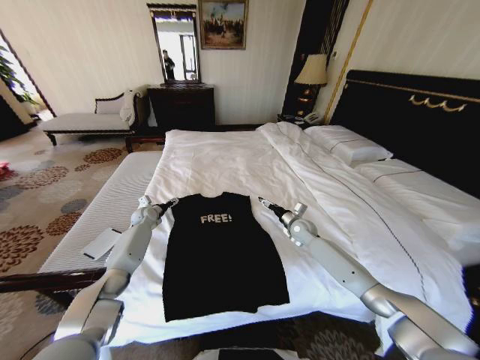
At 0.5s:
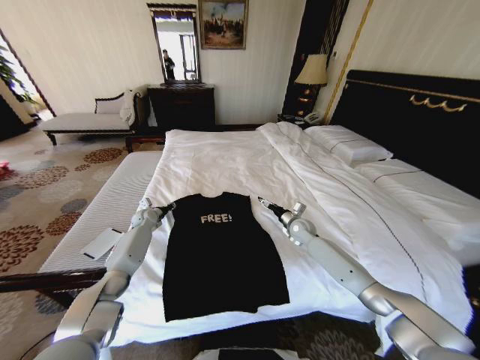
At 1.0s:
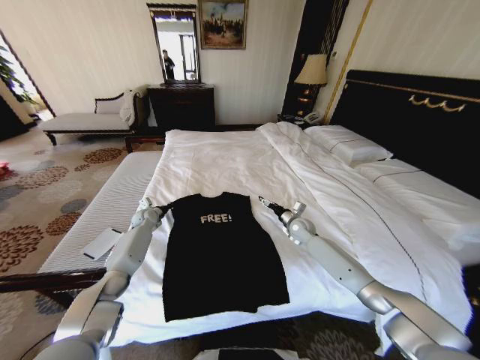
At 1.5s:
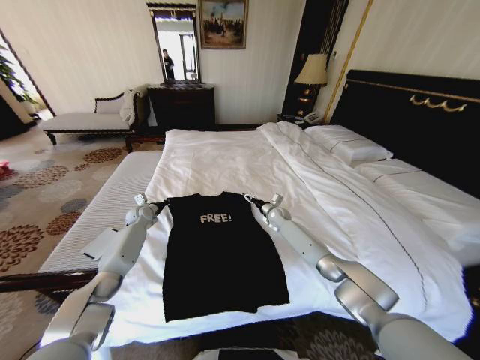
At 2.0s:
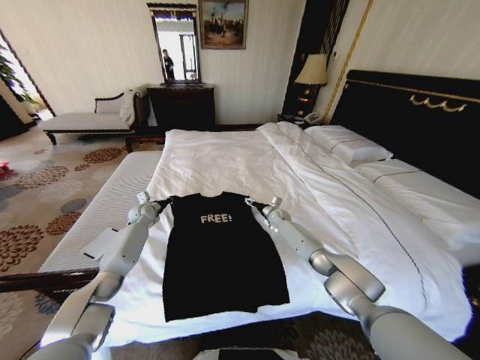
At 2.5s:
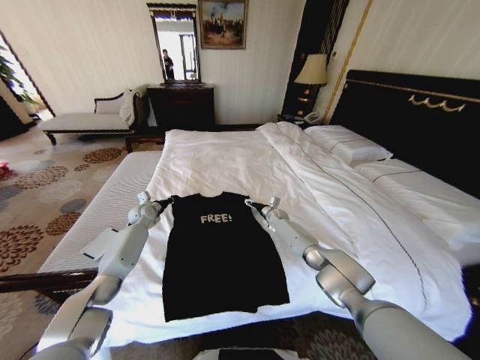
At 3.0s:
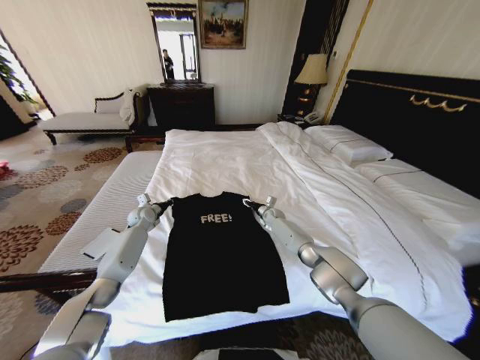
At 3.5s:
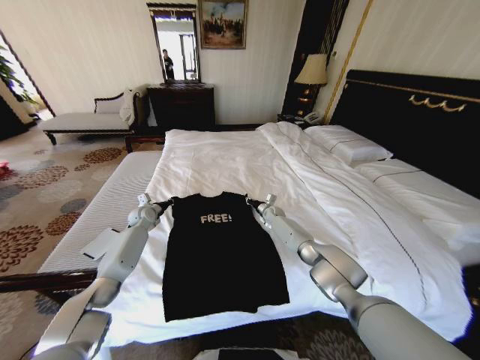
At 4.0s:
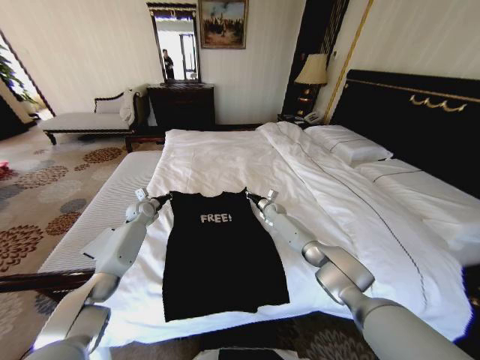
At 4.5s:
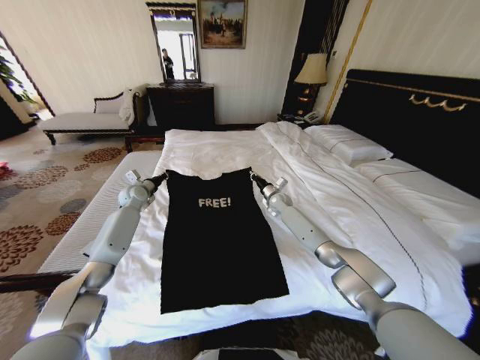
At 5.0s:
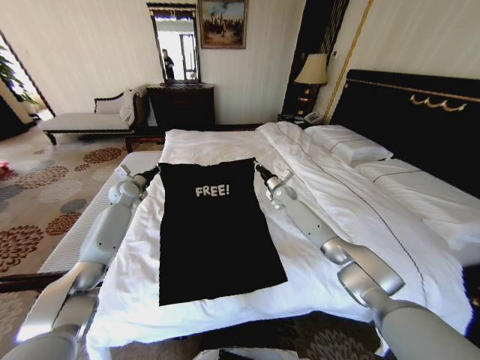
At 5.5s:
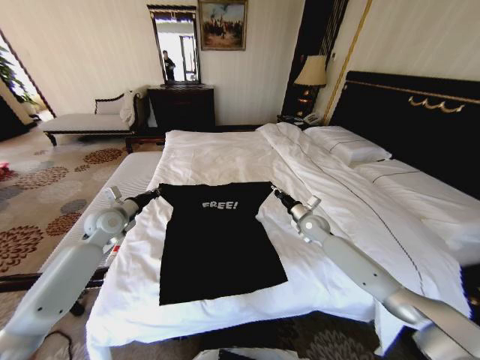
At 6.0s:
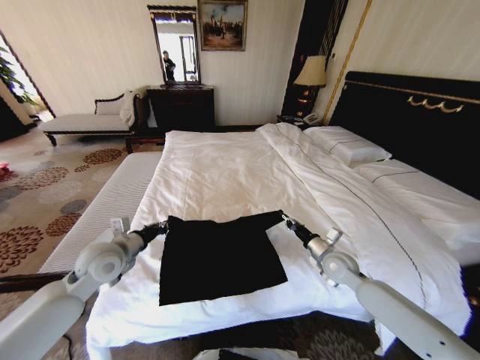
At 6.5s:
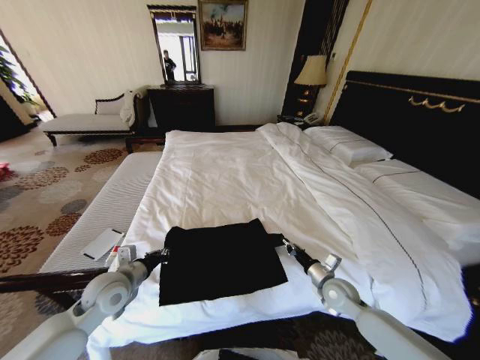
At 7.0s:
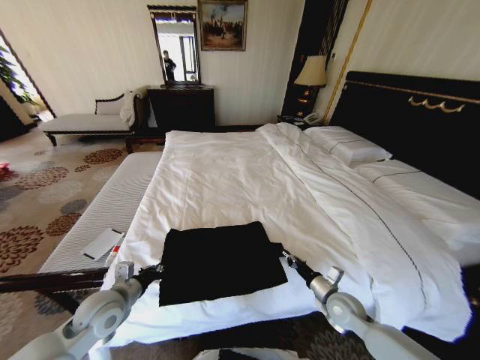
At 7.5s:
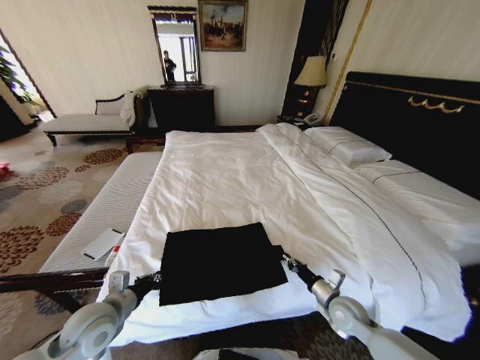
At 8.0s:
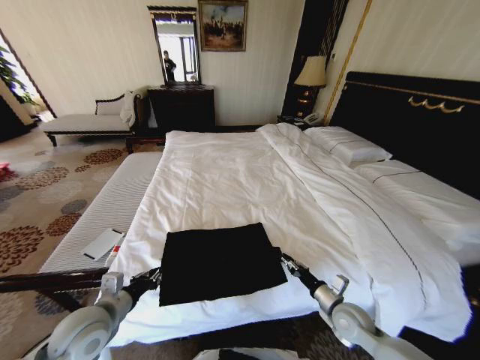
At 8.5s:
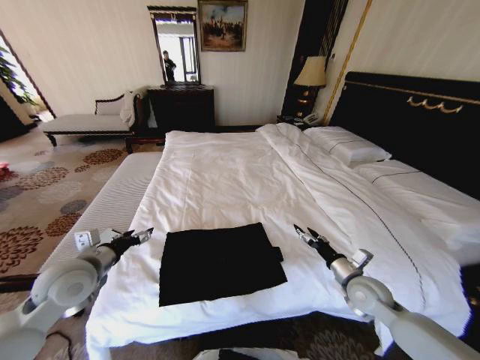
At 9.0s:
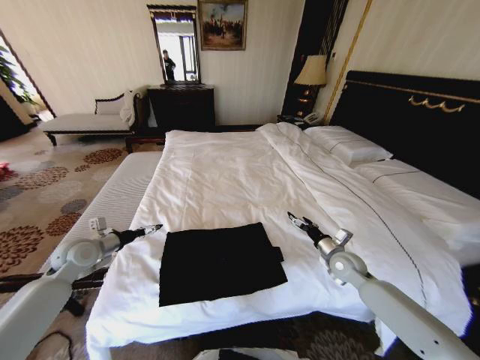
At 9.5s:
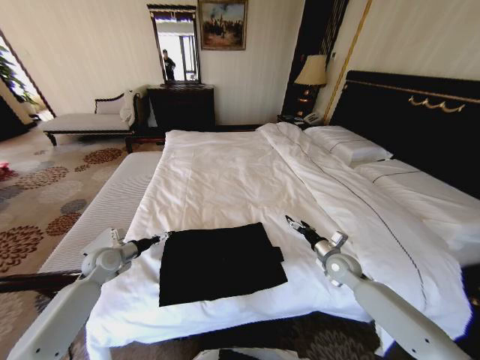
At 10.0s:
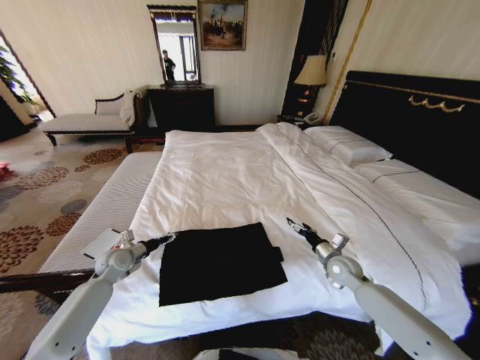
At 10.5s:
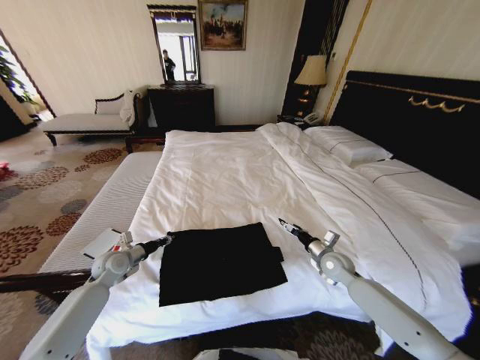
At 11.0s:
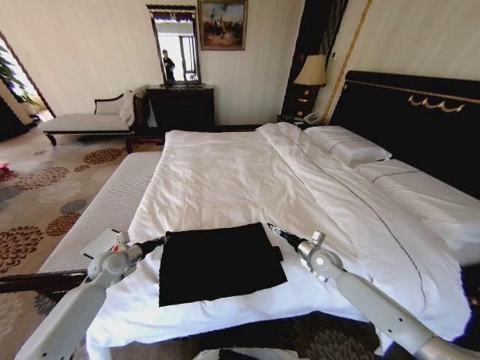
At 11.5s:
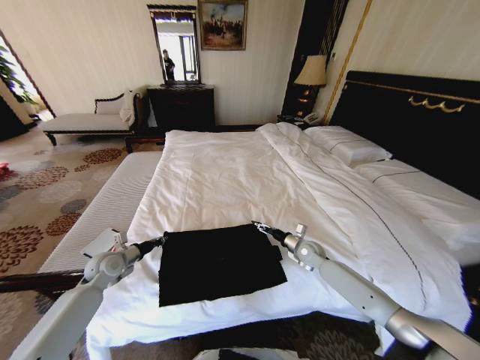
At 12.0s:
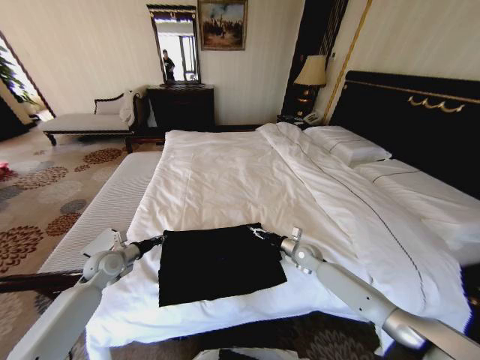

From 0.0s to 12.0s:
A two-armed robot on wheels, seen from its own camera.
Task of the whole recording: Fold the clothes on the bed.
From 0.0s to 2.0s: The right gripper heads forward and to the left, covering roughly 10 cm, while the left gripper closes its fingers.
From 2.0s to 4.0s: The right gripper closes up.
From 4.0s to 6.0s: The left gripper moves backward, roughly 25 cm; the right gripper is displaced backward and to the right by some 30 cm.
From 6.0s to 8.0s: The two grippers go roughly 15 cm backward and downward.
From 8.0s to 10.0s: The left gripper is displaced forward, downward and to the left by roughly 20 cm, and opens up; the right gripper heads forward, covering approximately 15 cm, and opens its fingers.
From 10.0s to 12.0s: The left gripper closes. Meanwhile the right gripper goes roughly 10 cm forward and to the left.

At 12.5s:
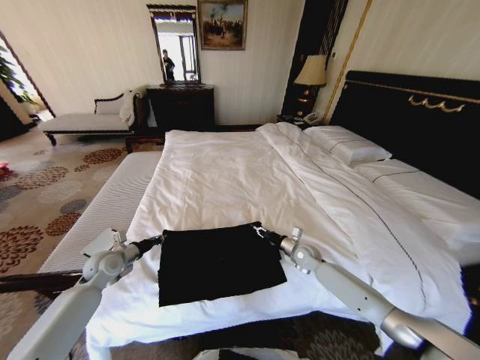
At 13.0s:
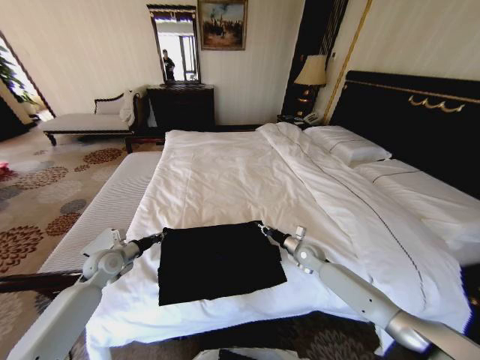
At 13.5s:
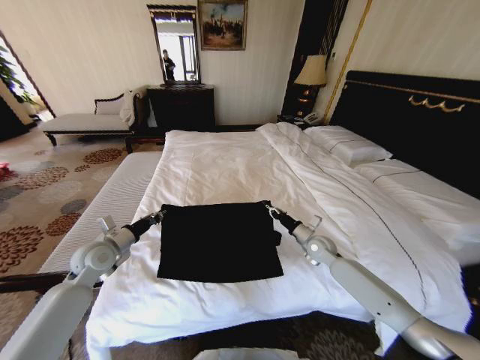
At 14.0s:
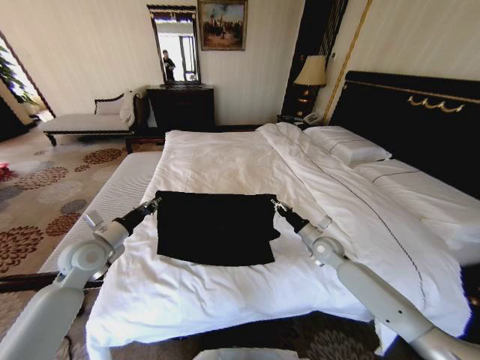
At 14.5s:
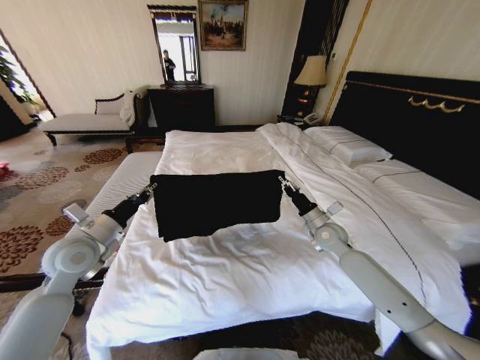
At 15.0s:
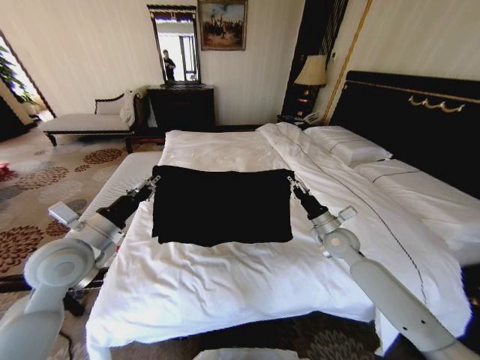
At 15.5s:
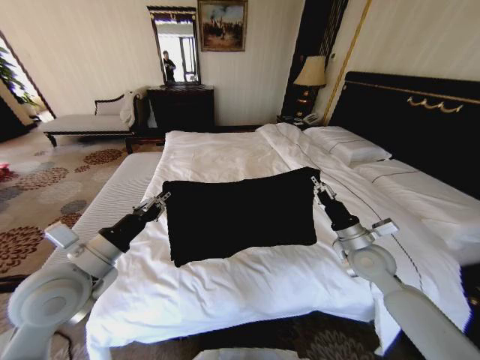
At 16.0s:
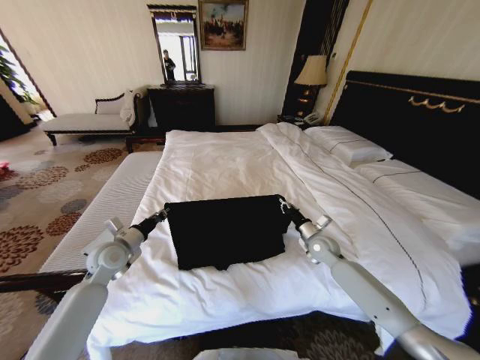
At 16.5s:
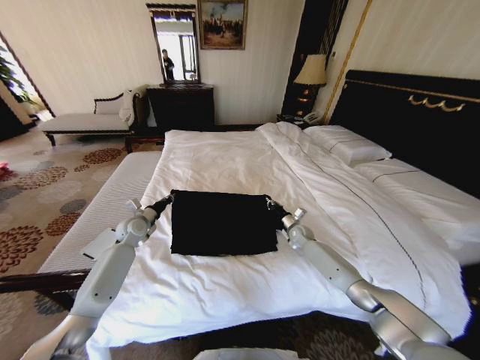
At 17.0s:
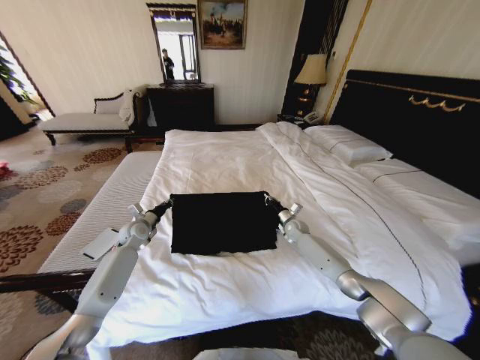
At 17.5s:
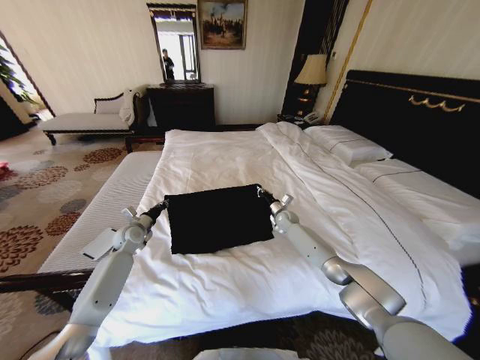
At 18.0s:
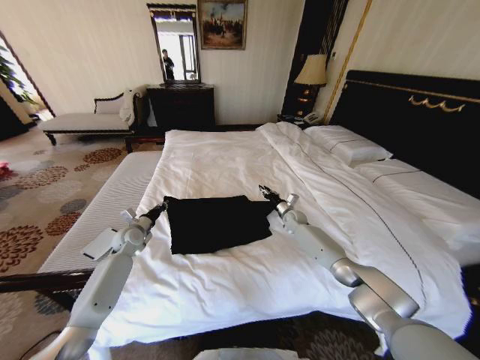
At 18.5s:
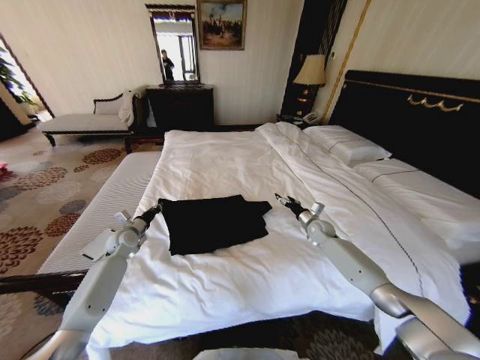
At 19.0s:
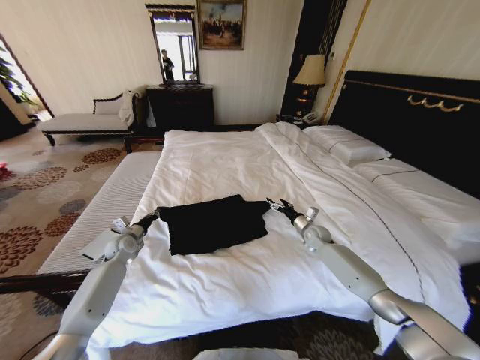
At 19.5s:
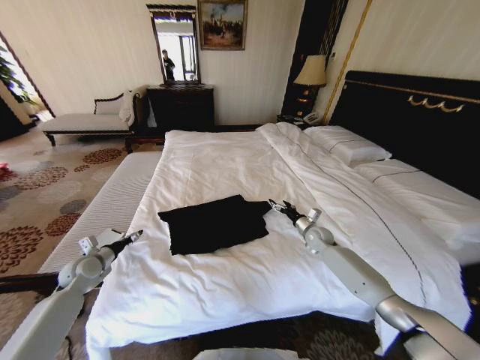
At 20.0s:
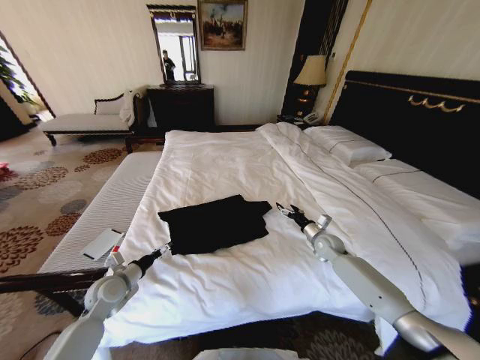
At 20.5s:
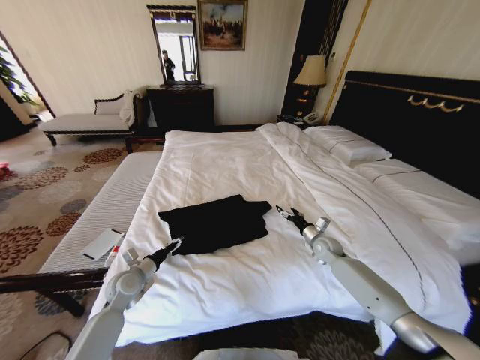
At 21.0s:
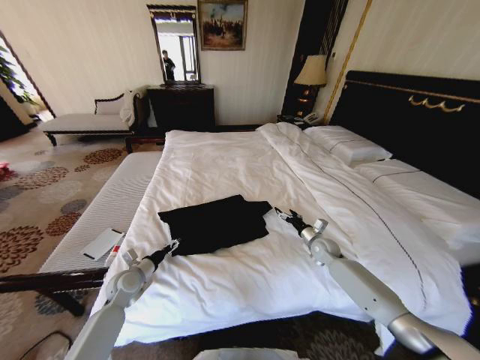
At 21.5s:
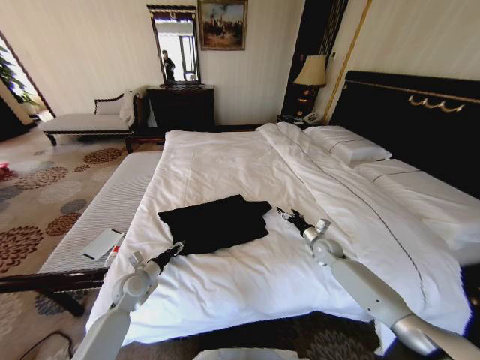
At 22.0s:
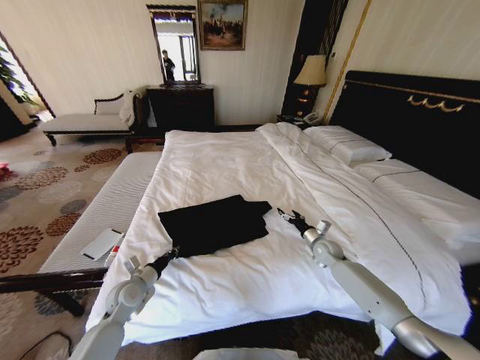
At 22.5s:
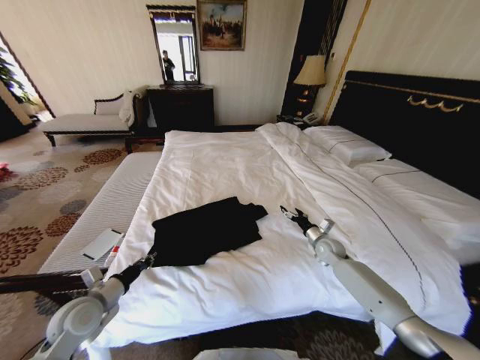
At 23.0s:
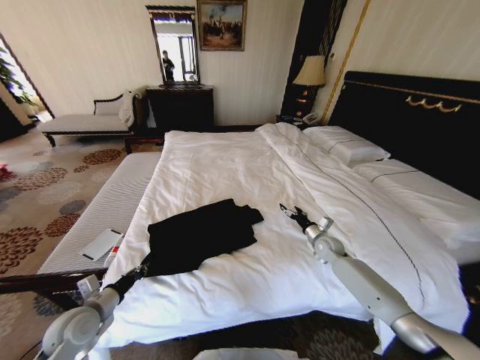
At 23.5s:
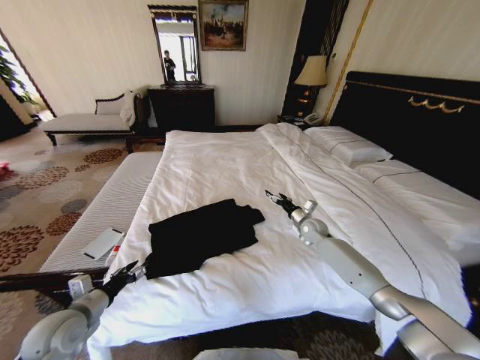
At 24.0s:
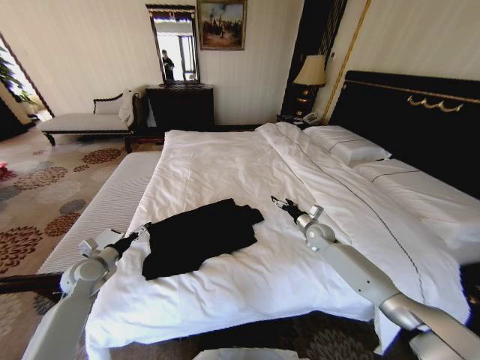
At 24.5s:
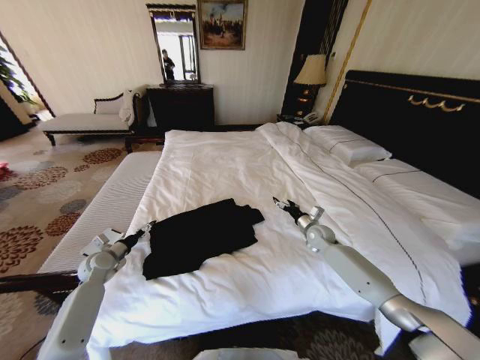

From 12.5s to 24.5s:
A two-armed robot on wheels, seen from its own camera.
Task of the whole recording: Fold the clothes on the bed.
From 12.5s to 14.5s: Both grippers travel together upward, about 15 cm.
From 14.5s to 16.5s: The right gripper travels downward and forward by about 15 cm, while the left gripper goes approximately 20 cm forward and downward.
From 16.5s to 18.5s: The right gripper travels to the right by about 5 cm, and opens up. The left gripper shifts by about 5 cm.
From 18.5s to 20.5s: The right gripper travels backward by some 5 cm. The left gripper is displaced backward and to the right by about 15 cm, and opens its fingers.
From 20.5s to 22.5s: The left gripper goes some 10 cm backward and upward, and closes its fingers.
From 22.5s to 24.5s: The left gripper travels forward and to the left by roughly 20 cm, and opens up.

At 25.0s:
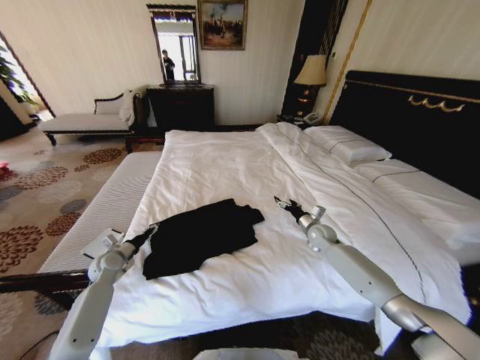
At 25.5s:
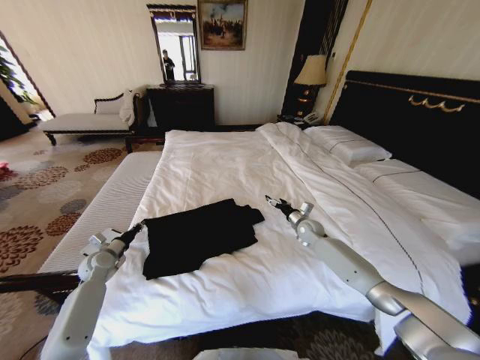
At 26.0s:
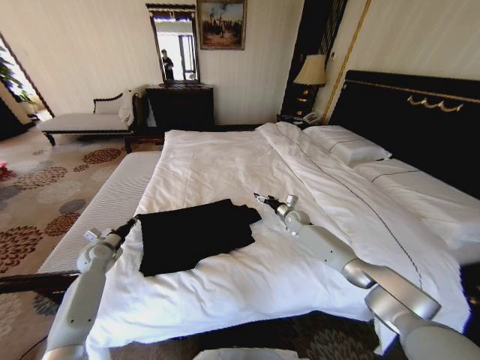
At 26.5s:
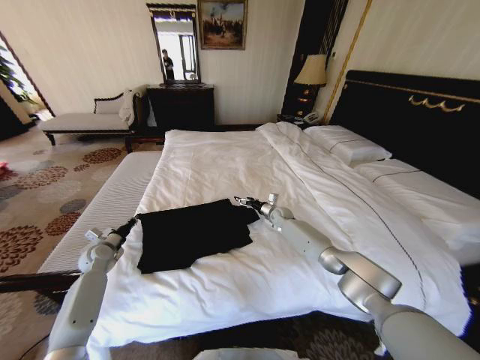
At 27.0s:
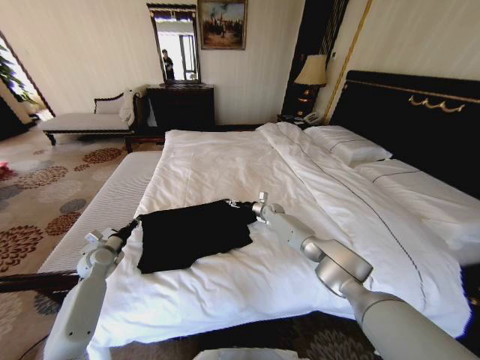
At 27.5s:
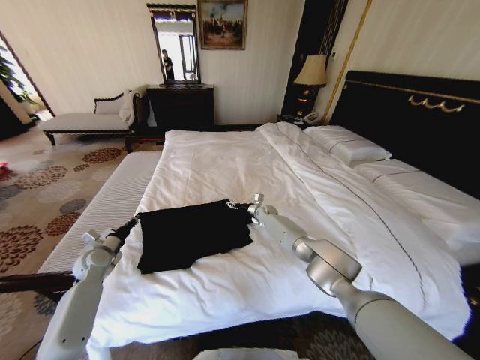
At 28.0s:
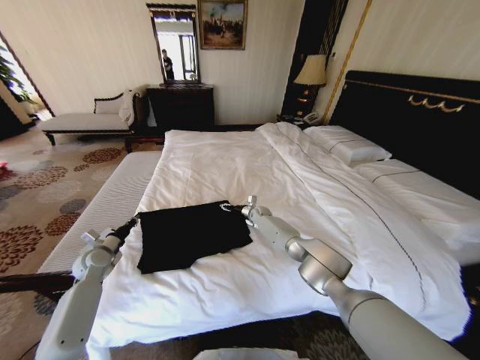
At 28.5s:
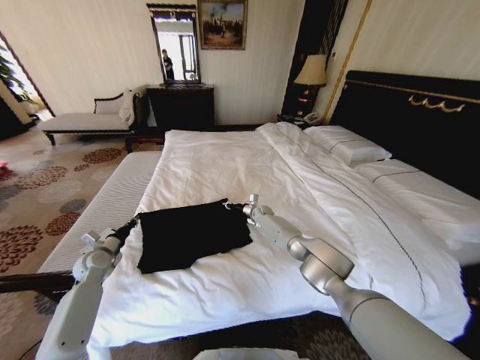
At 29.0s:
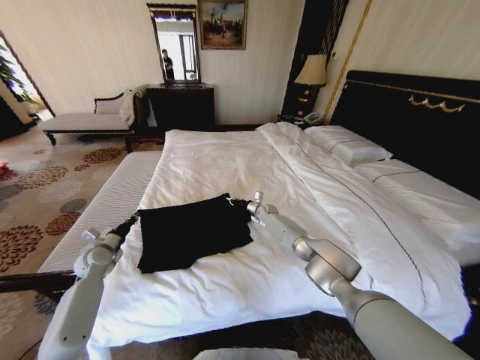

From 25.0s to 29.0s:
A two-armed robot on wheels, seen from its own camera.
Task of the whole recording: Fold the clothes on the bed.
From 25.0s to 27.0s: The right gripper travels forward and to the left by approximately 20 cm. Meanwhile the left gripper closes its fingers.
From 27.0s to 29.0s: The right gripper closes.
